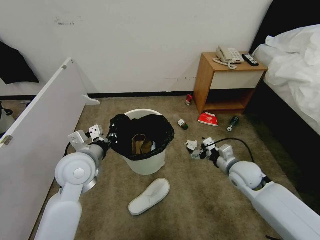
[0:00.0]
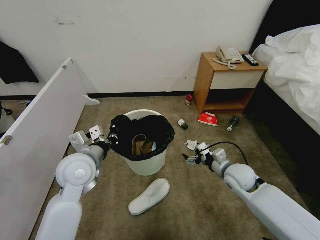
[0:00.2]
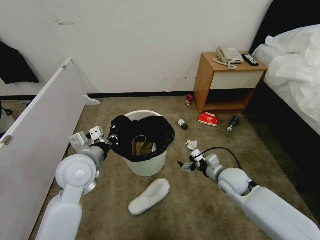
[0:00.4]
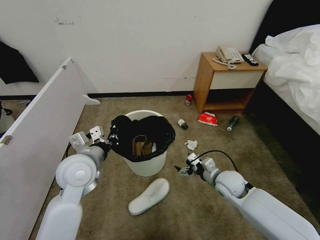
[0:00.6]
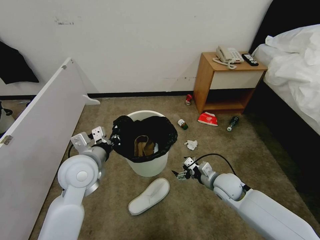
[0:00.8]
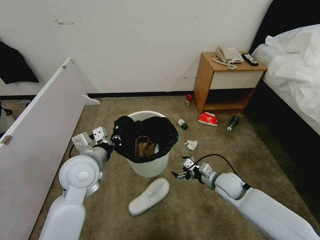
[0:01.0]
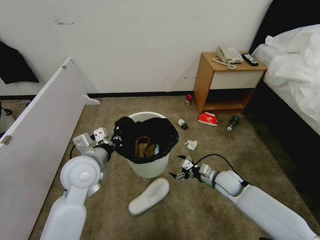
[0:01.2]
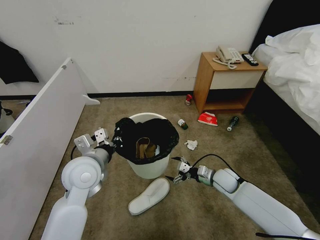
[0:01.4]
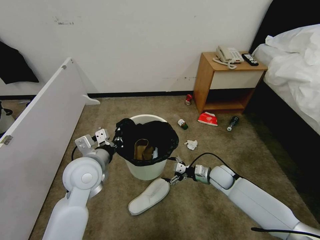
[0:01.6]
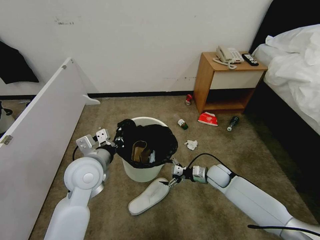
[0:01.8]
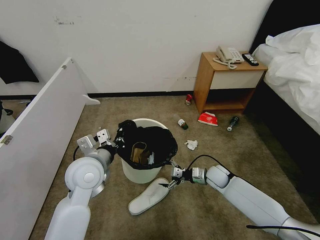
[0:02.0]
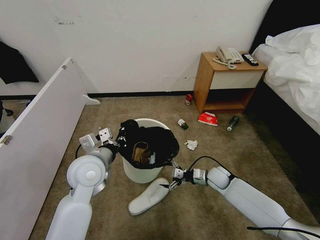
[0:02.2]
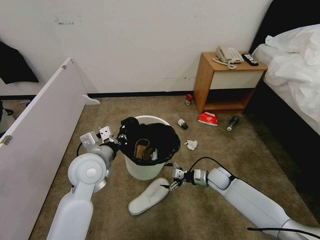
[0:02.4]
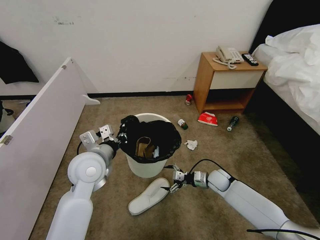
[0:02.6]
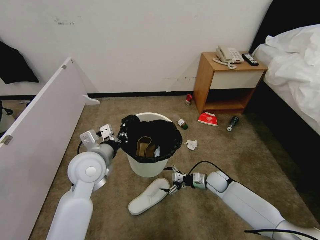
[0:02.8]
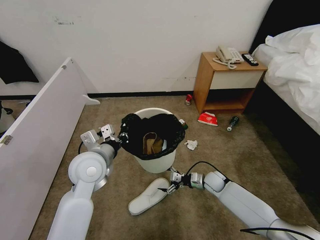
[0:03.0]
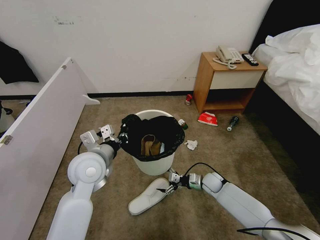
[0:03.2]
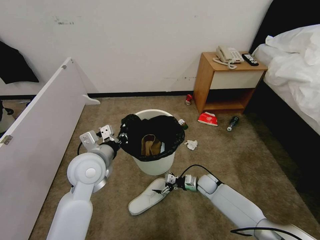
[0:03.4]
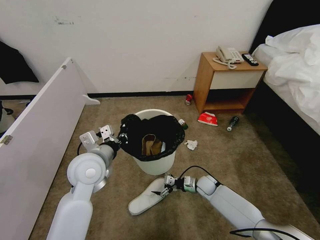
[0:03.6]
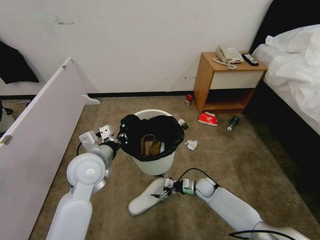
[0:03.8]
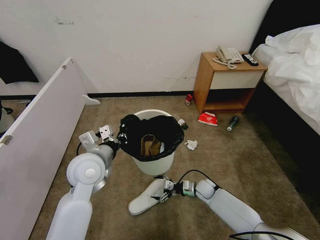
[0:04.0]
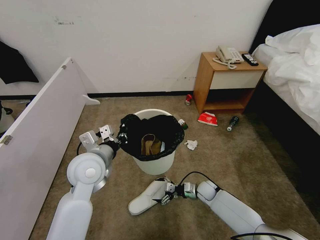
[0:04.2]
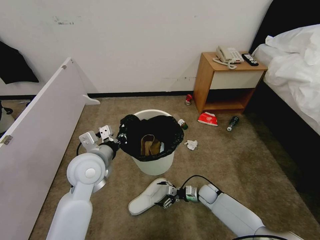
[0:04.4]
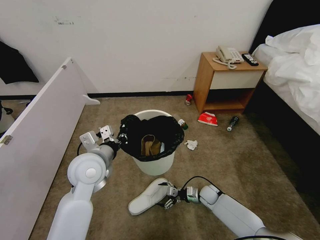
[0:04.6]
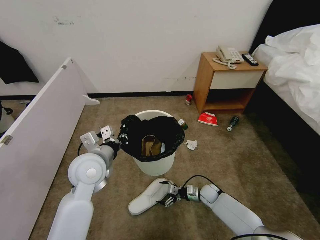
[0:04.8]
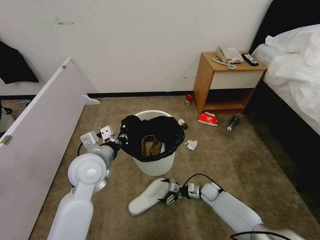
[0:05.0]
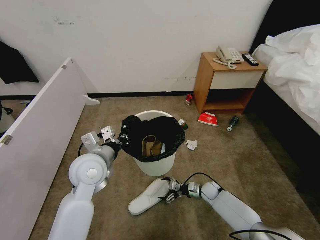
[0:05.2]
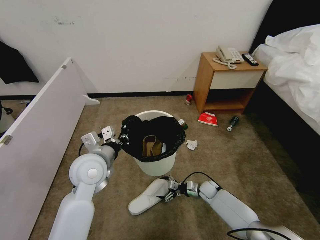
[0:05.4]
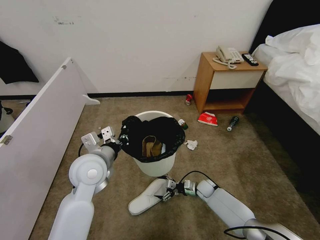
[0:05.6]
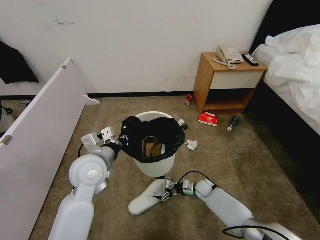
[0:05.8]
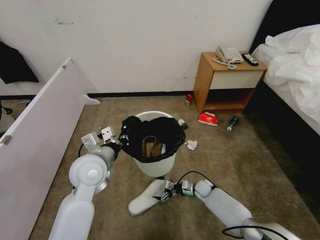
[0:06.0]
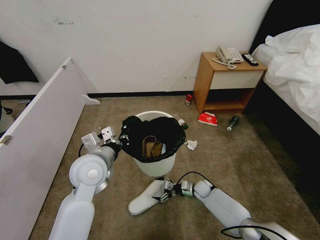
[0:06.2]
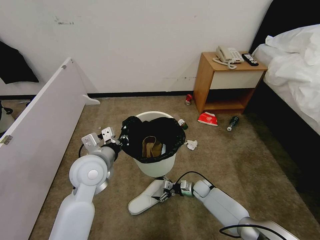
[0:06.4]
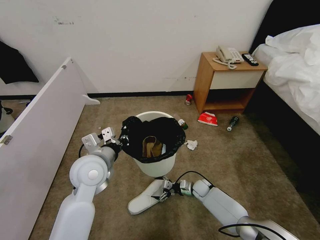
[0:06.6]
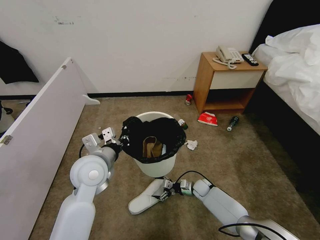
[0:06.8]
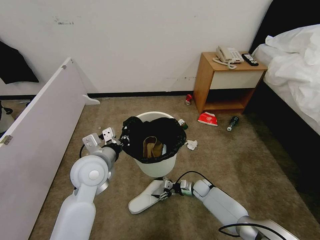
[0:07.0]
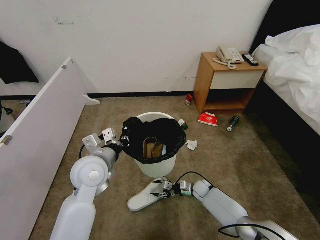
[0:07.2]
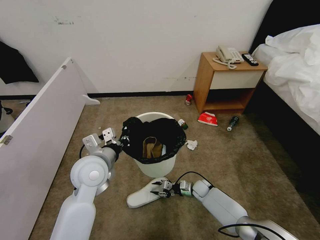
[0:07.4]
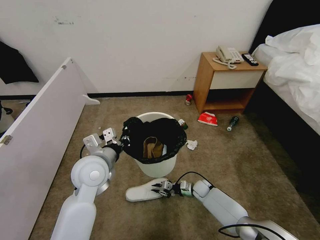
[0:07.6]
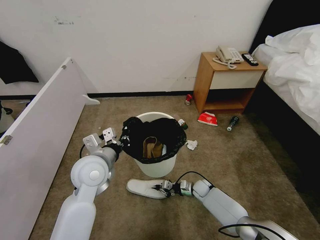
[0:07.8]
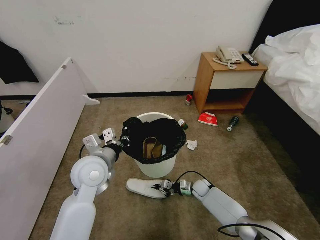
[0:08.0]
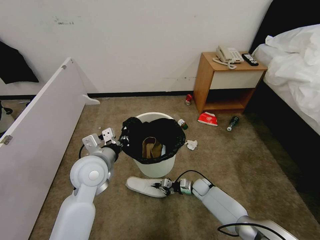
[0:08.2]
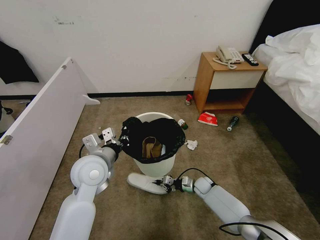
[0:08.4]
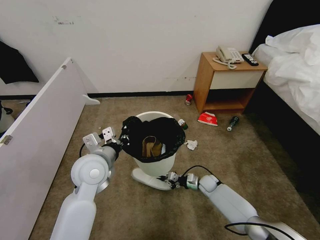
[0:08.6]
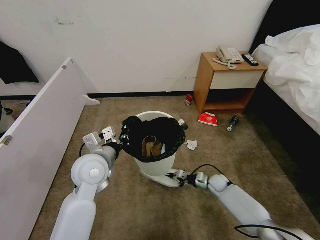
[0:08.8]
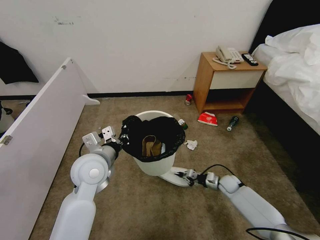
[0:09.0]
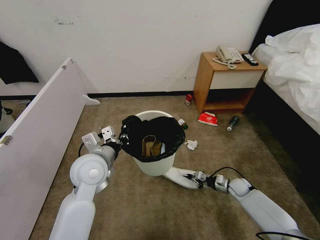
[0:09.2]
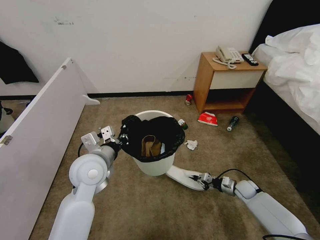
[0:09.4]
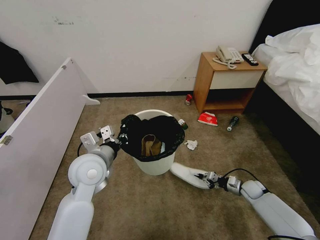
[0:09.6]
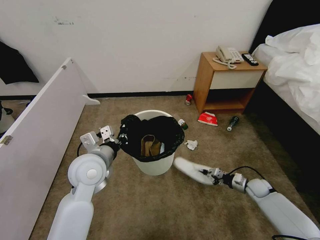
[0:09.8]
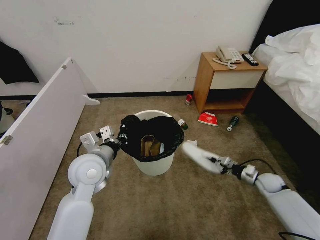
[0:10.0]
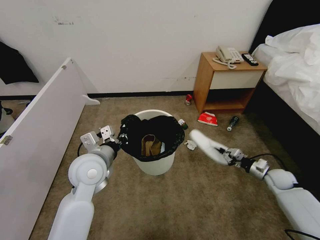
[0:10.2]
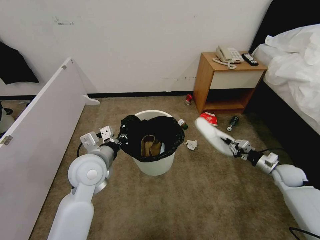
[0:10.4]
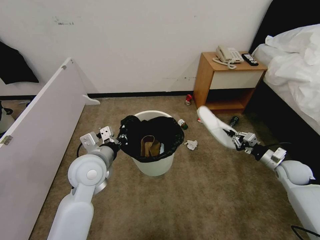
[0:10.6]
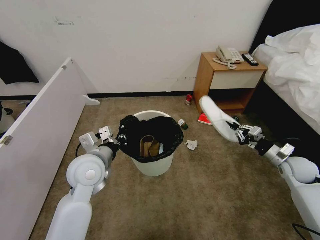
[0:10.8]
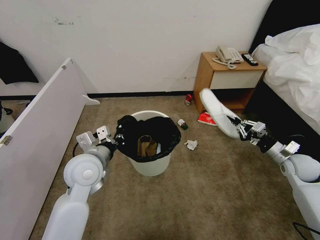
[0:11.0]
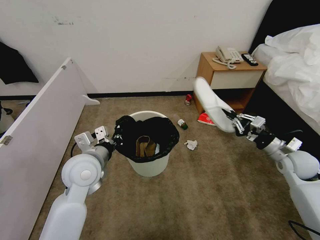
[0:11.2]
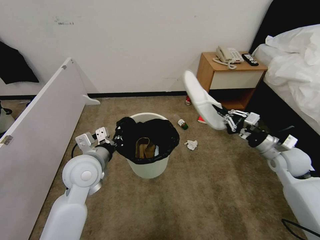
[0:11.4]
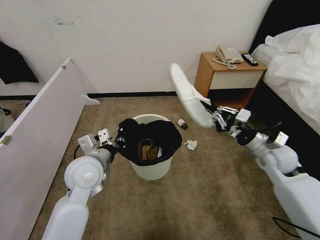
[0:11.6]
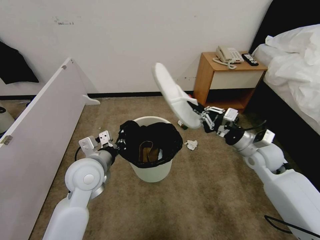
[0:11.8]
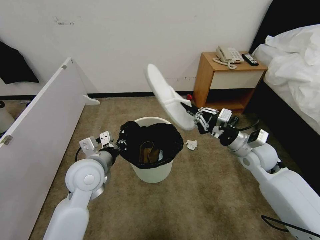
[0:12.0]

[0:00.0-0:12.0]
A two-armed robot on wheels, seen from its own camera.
Task of the whole recording: Pick up the trash bin, then pick up the garbage from the floor and place it into the trash bin.
0:00.0 to 0:01.6: The right gripper travels downward by some 10 cm.
0:01.6 to 0:03.0: The right gripper goes roughly 5 cm downward.
0:03.0 to 0:04.4: The right gripper shifts some 5 cm downward.
0:04.4 to 0:06.0: The grippers move only a little.
0:06.0 to 0:07.6: The right gripper closes its fingers.
0:07.6 to 0:09.0: The right gripper moves to the right and upward, about 15 cm.
0:09.0 to 0:10.4: The right gripper is displaced to the right and upward by some 20 cm.
0:10.4 to 0:12.0: The right gripper is displaced to the left and upward by about 25 cm.

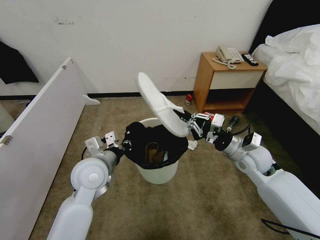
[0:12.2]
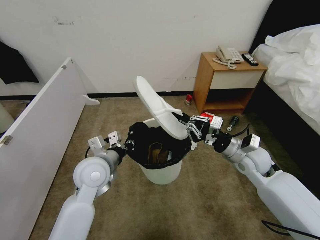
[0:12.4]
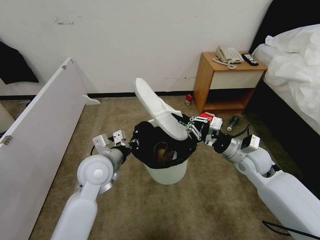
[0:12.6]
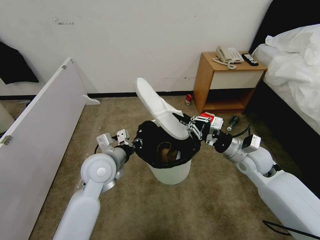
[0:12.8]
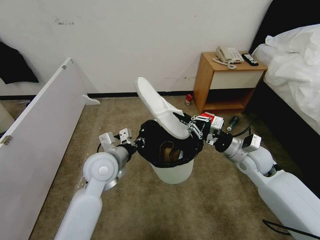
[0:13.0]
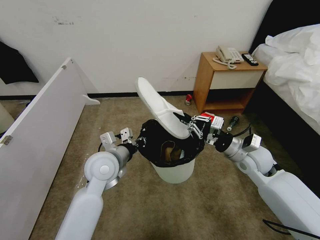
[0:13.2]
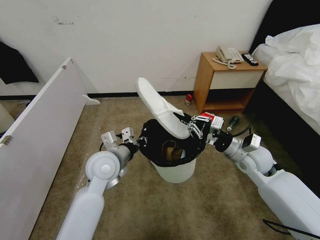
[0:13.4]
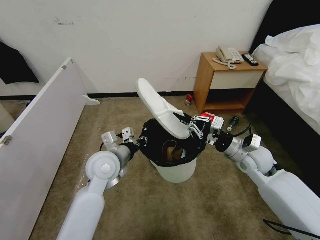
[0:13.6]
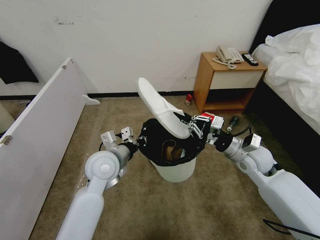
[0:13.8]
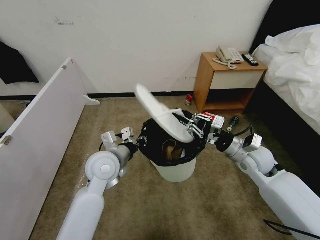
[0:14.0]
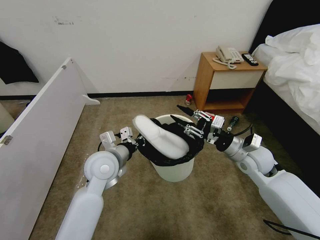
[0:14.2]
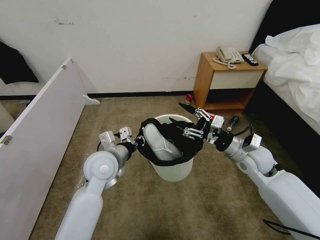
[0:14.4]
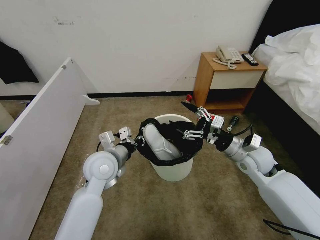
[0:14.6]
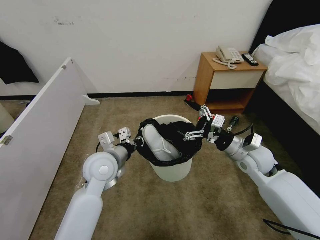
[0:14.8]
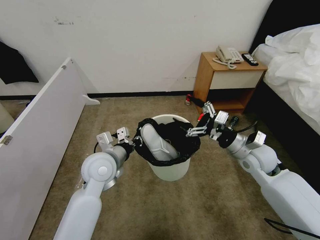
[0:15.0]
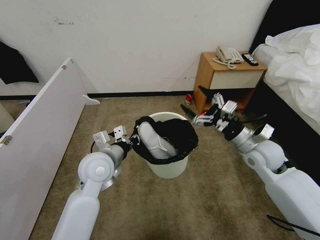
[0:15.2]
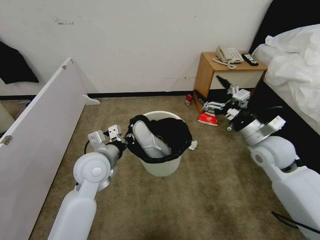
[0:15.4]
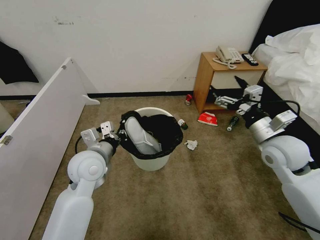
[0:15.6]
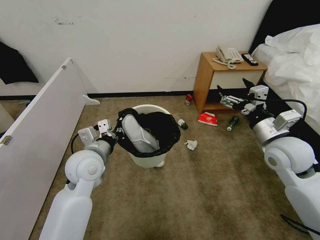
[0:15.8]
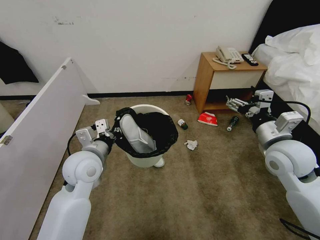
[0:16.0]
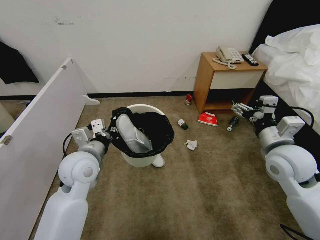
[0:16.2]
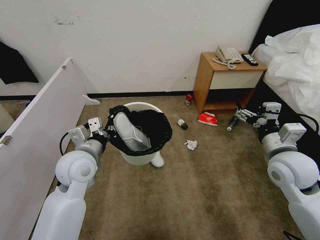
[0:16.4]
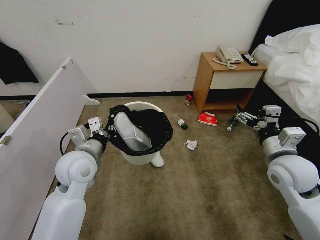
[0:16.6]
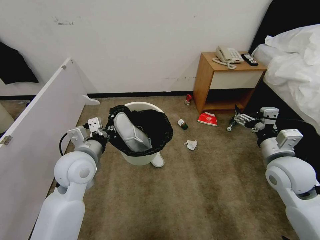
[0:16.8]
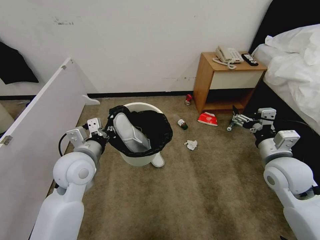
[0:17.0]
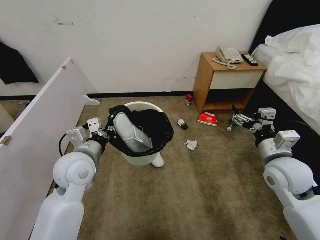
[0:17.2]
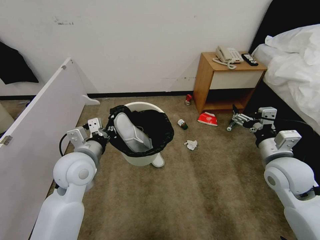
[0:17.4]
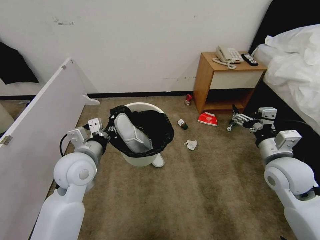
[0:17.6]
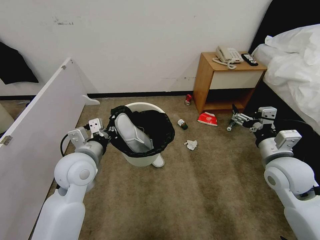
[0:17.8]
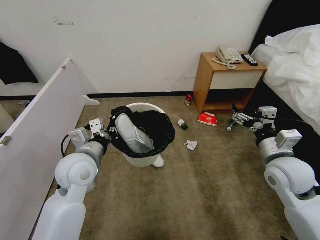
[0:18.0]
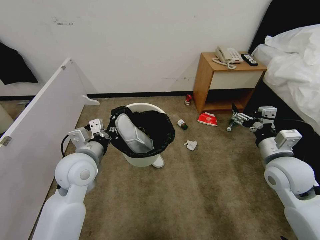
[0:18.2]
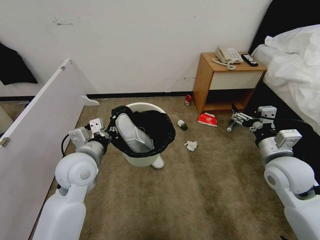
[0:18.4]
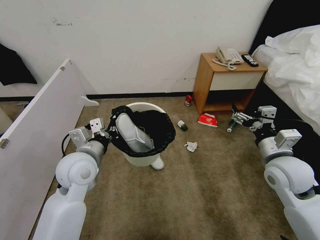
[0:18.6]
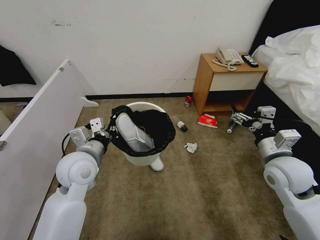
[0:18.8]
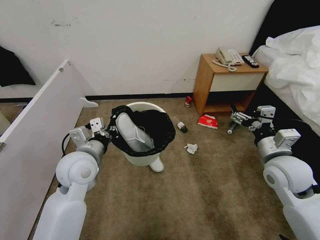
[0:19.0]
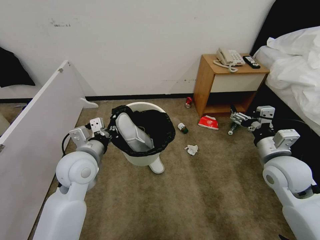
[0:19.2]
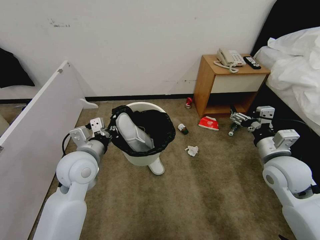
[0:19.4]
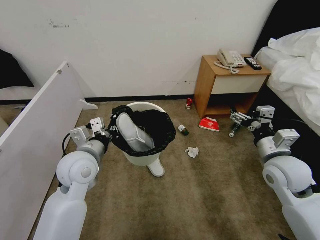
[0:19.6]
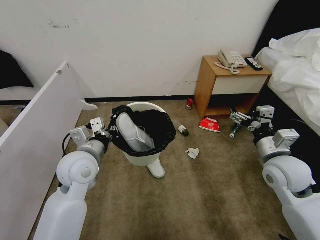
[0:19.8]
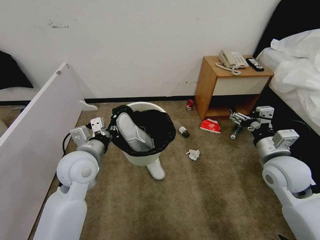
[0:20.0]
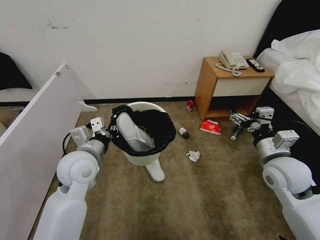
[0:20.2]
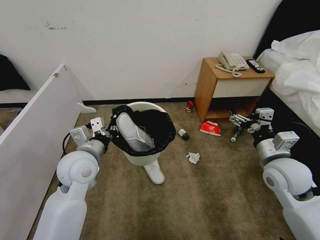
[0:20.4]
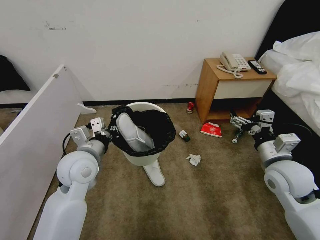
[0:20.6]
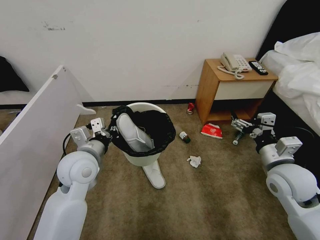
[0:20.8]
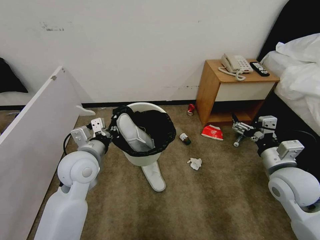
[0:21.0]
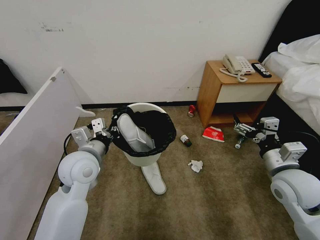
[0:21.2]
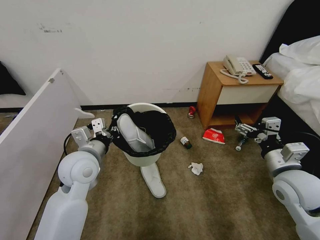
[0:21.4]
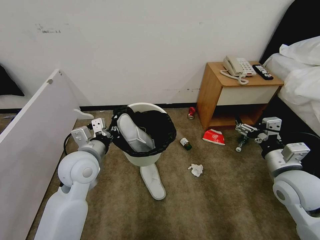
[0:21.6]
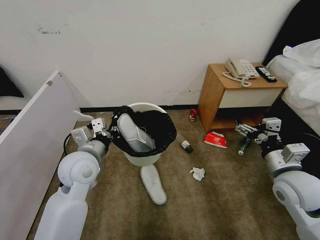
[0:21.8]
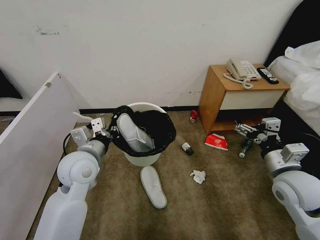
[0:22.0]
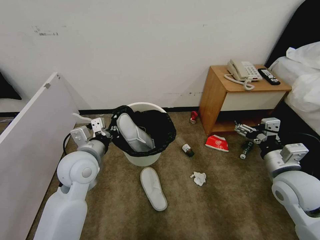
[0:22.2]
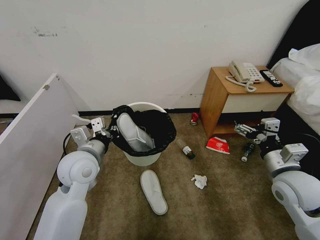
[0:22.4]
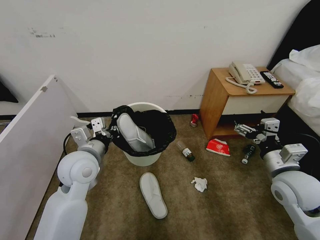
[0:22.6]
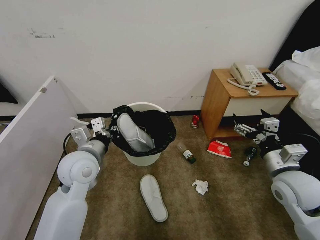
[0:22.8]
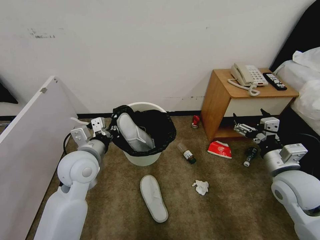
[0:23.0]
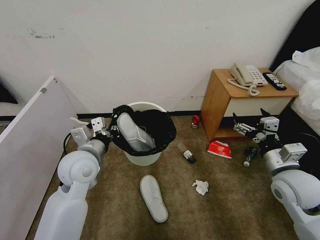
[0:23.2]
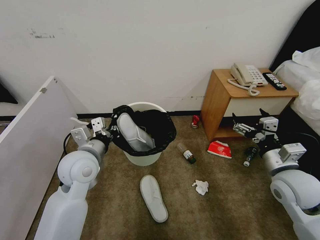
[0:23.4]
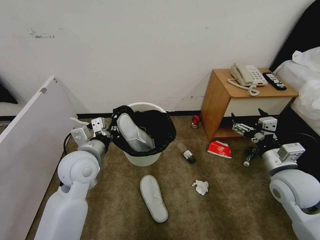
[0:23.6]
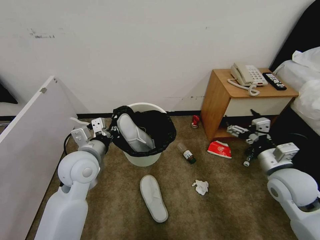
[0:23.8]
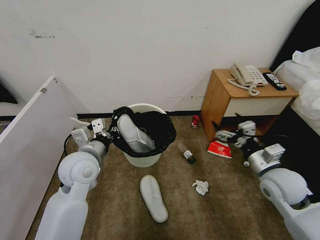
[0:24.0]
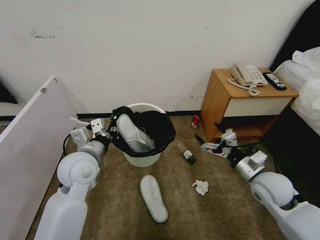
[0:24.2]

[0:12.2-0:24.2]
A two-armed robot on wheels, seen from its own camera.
Task of the whole recording: Pick up the trash bin, then pick up the garbage from the floor and place it into the trash bin.
0:12.2 to 0:13.8: The grippers move only a little.
0:13.8 to 0:15.2: The right gripper opens.
0:15.2 to 0:16.6: The right gripper heads backward, covering approximately 5 cm.
0:16.6 to 0:19.8: Neither gripper changes place.
0:19.8 to 0:21.2: There are only small adjustments of the grippers.
0:21.2 to 0:22.6: Both grippers stay put.
0:22.6 to 0:24.2: The right gripper travels downward by roughly 5 cm.
